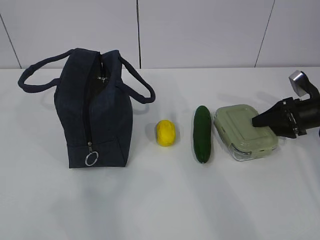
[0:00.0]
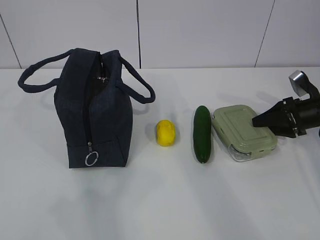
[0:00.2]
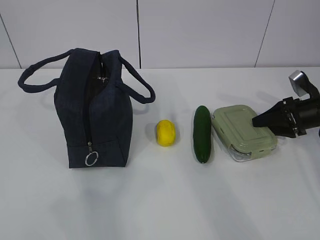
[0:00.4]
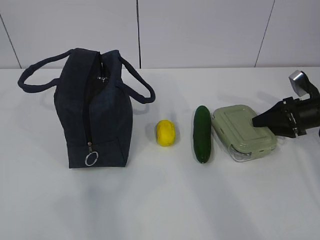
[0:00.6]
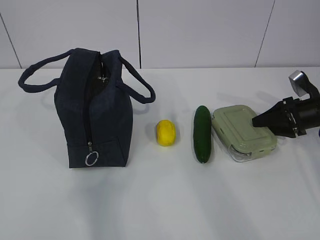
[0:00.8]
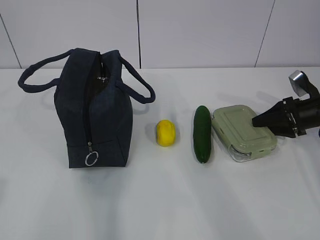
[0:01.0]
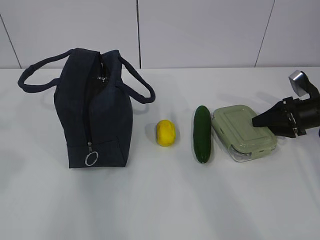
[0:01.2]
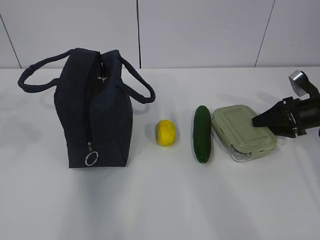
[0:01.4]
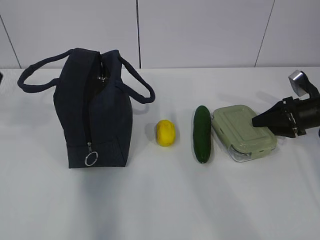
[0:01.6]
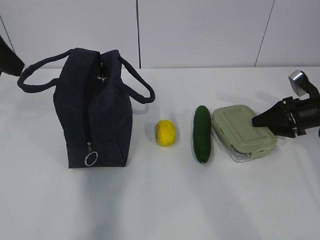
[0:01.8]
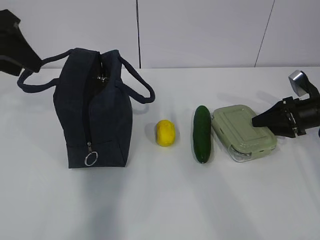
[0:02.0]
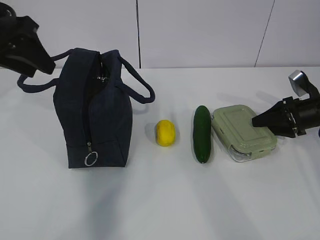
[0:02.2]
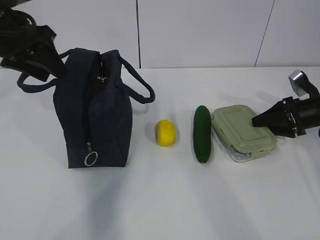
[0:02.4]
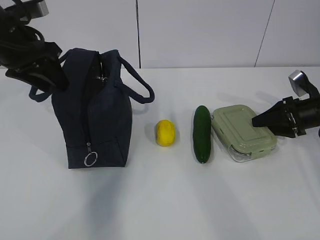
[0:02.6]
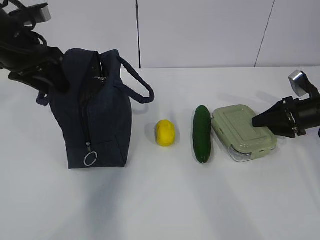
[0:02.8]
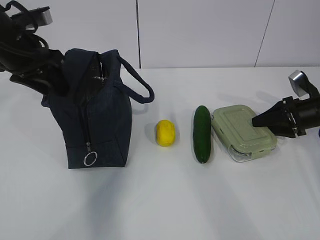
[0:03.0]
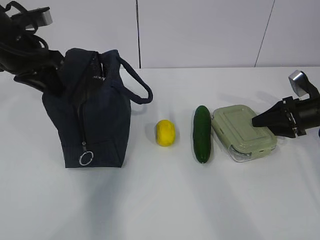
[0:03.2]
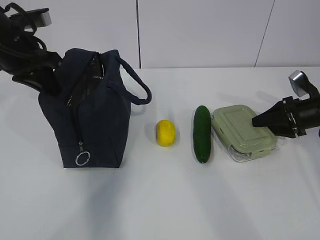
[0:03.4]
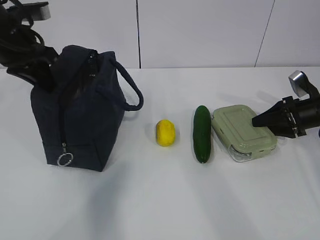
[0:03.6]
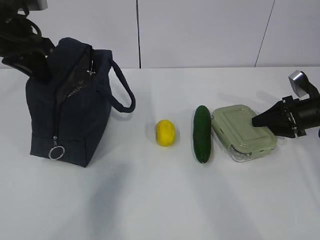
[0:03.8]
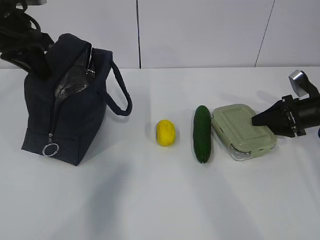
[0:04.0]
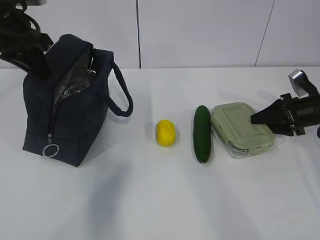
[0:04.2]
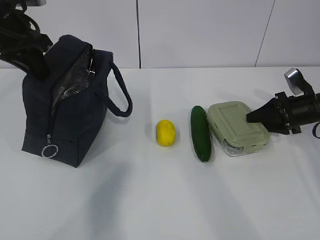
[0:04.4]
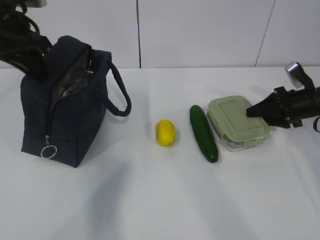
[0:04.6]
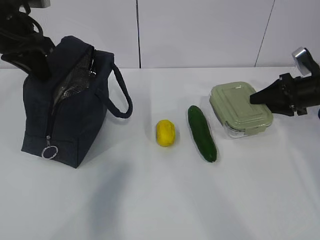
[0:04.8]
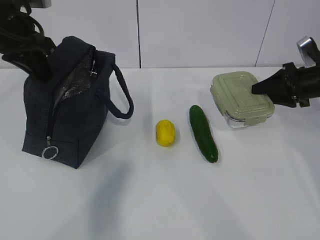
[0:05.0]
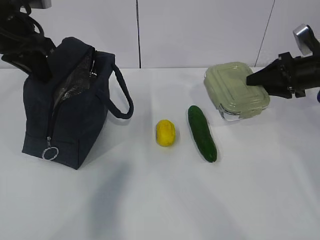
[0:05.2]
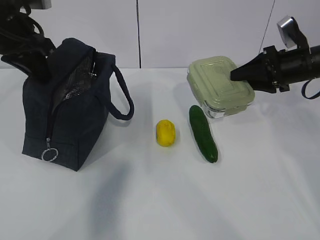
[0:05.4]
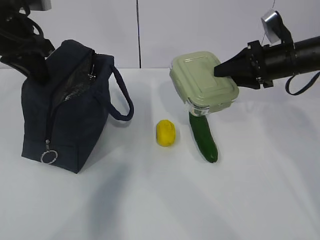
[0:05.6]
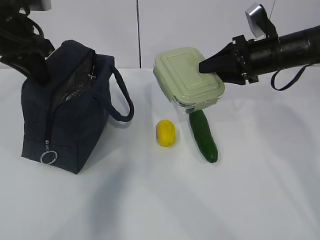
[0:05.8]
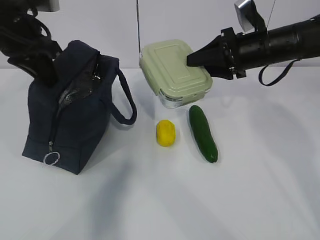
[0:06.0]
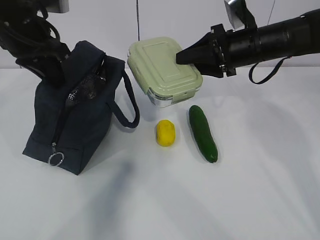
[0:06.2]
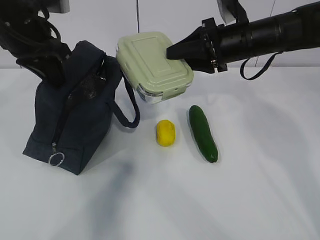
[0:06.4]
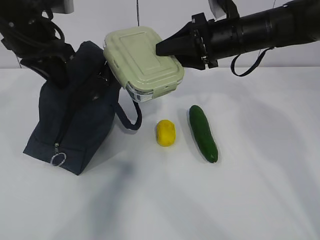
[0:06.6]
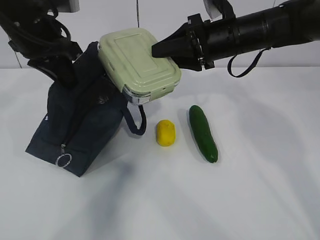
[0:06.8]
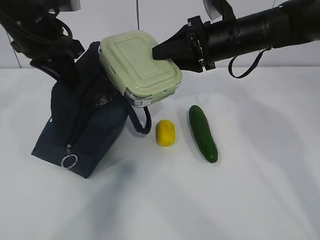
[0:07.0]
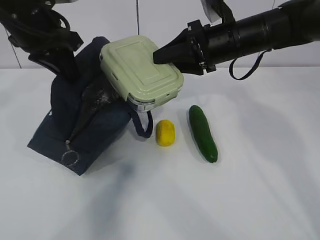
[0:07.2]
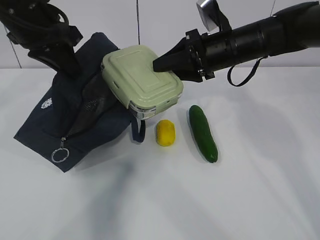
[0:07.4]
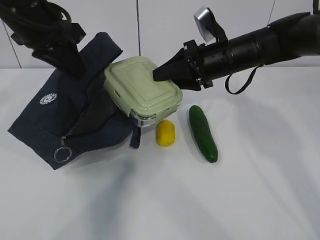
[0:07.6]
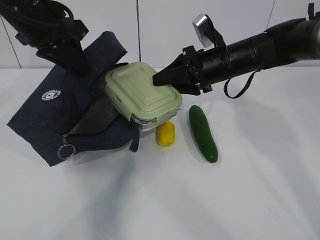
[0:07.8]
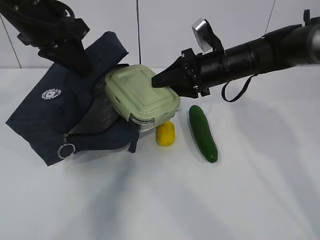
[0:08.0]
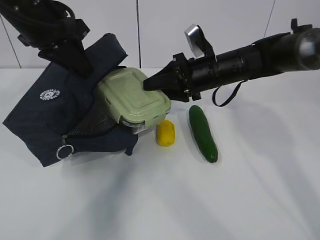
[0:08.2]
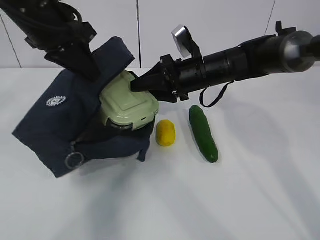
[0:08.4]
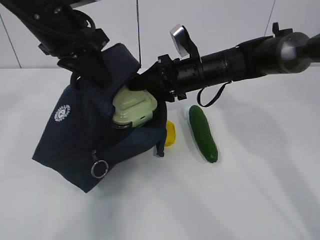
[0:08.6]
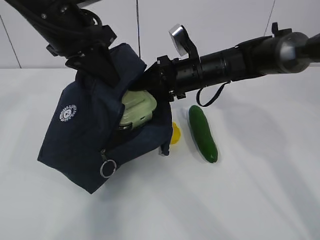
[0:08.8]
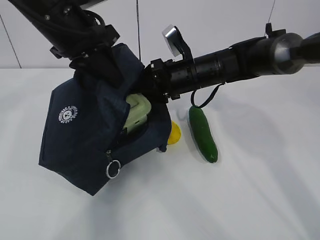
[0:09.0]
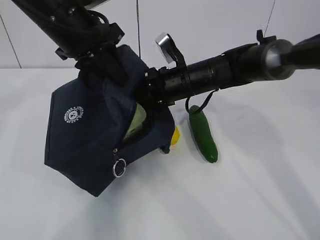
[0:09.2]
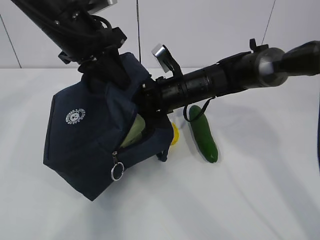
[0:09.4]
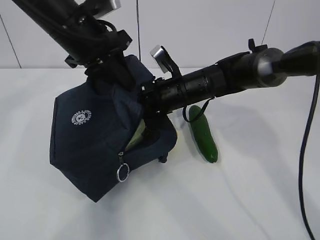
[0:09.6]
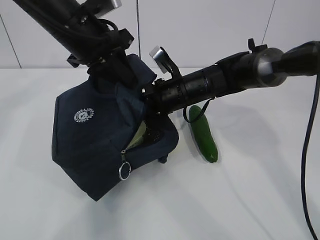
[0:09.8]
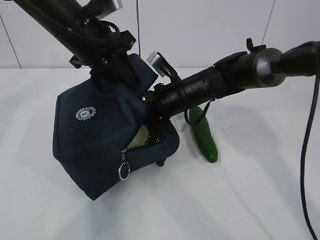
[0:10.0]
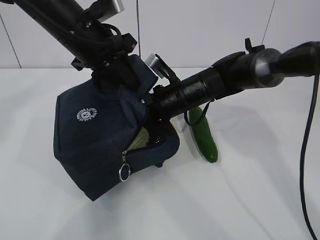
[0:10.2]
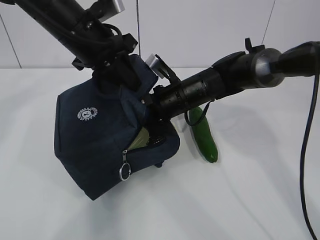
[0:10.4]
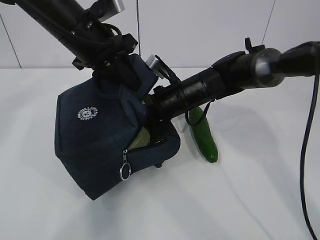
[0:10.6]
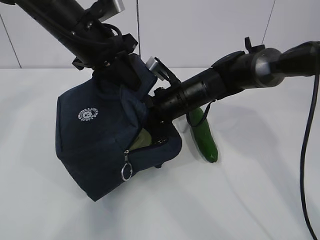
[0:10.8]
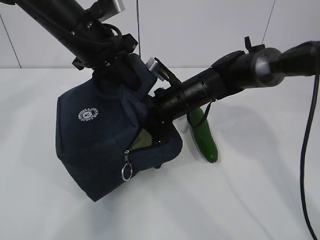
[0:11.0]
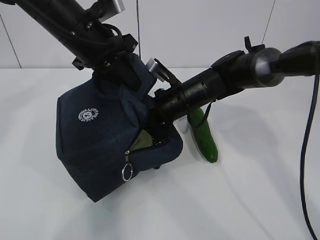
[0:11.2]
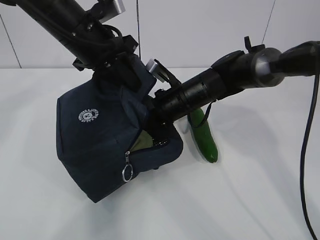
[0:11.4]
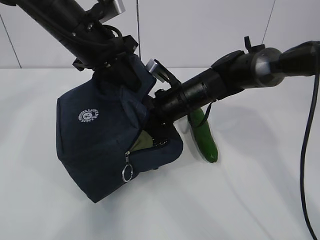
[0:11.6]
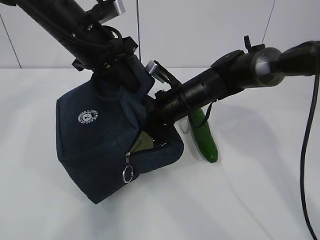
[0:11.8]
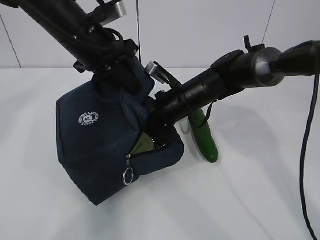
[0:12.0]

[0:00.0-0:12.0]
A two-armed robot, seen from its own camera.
Step, 0:02.6 to 0:04.2: Grab the lunch bag with your left hand.
Step, 0:04.4 to 0:09.2: Place it into the bag with your right hand.
Step, 0:09.6 to 0:11.2: Grab the cucumber with your right hand.
0:00.0 to 0:01.6: The left gripper shifts some 25 cm forward.
0:01.6 to 0:03.0: The left gripper moves forward and downward, some 15 cm.
0:03.0 to 0:04.4: The left gripper closes its fingers.
0:04.4 to 0:06.0: The right gripper heads to the left and upward, covering about 20 cm.
0:06.0 to 0:07.6: The right gripper heads to the left, covering roughly 5 cm.
0:07.6 to 0:09.0: The right gripper travels to the left by roughly 5 cm.
0:09.0 to 0:12.0: There are only small adjustments of the grippers.

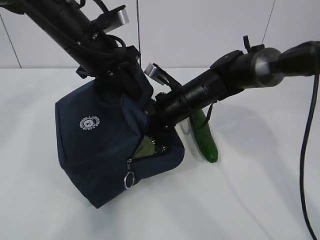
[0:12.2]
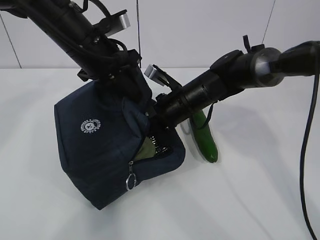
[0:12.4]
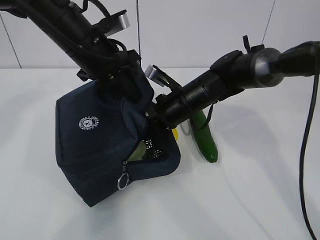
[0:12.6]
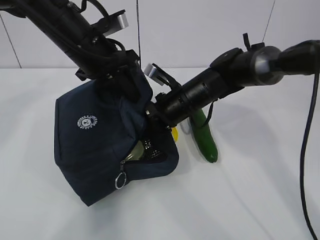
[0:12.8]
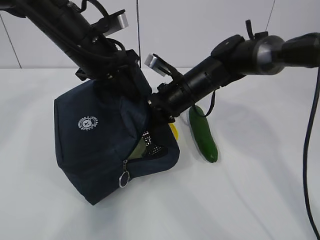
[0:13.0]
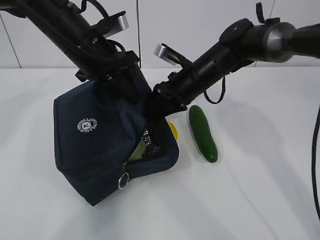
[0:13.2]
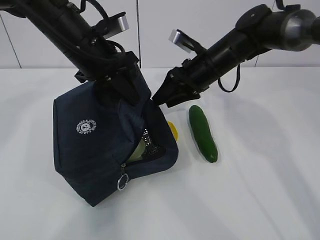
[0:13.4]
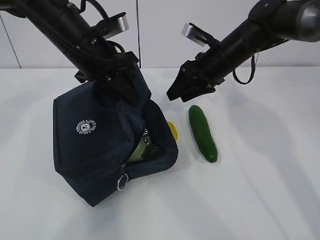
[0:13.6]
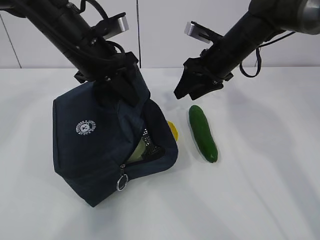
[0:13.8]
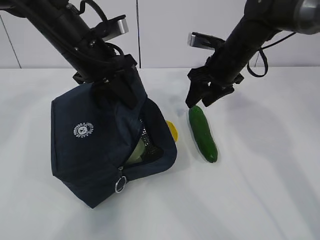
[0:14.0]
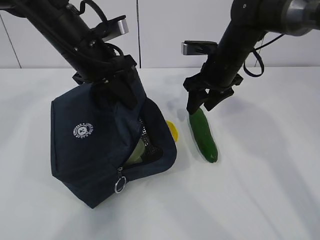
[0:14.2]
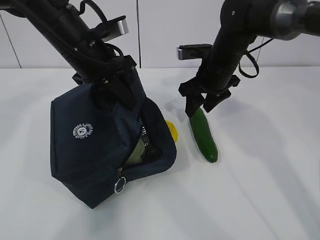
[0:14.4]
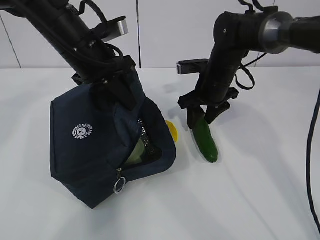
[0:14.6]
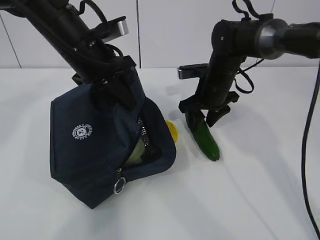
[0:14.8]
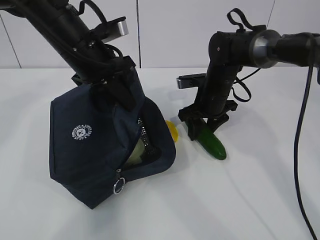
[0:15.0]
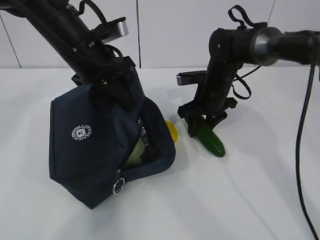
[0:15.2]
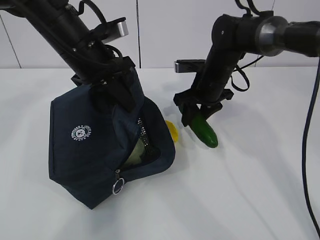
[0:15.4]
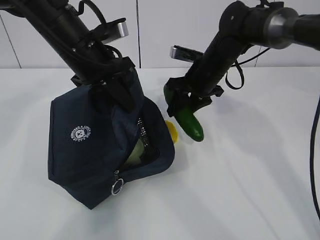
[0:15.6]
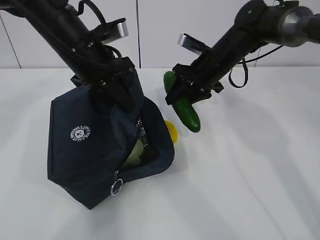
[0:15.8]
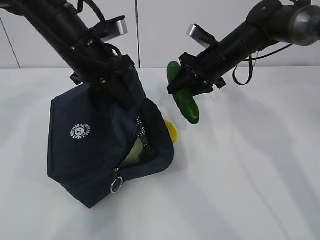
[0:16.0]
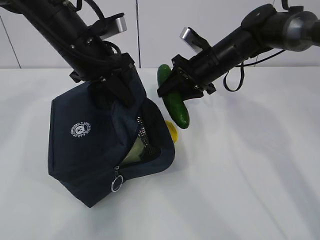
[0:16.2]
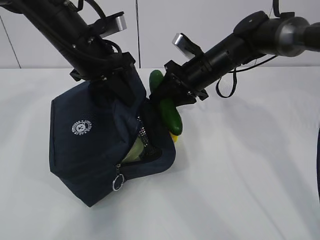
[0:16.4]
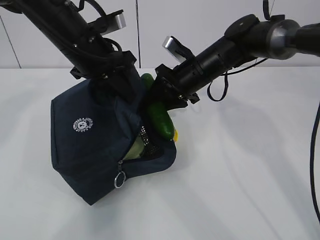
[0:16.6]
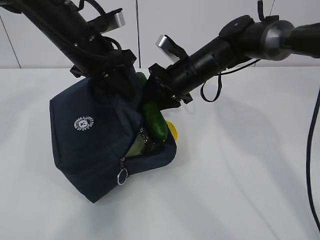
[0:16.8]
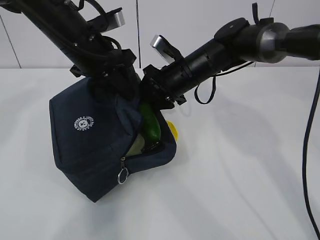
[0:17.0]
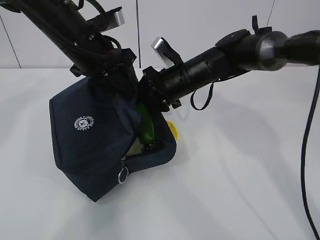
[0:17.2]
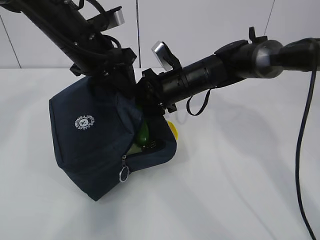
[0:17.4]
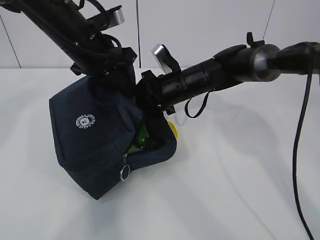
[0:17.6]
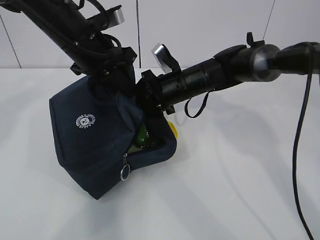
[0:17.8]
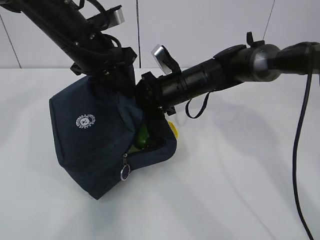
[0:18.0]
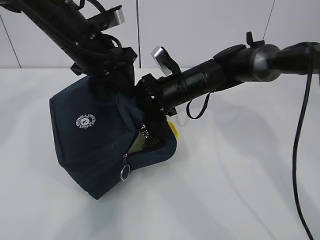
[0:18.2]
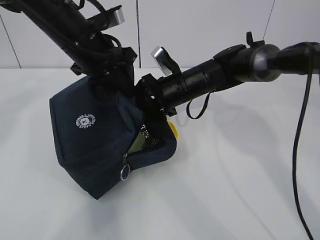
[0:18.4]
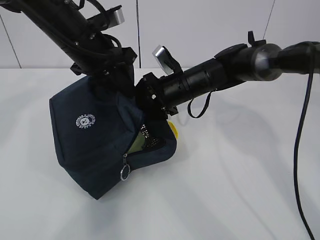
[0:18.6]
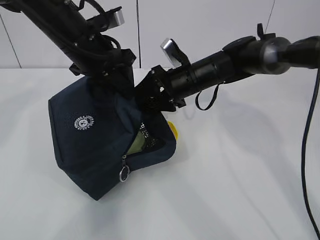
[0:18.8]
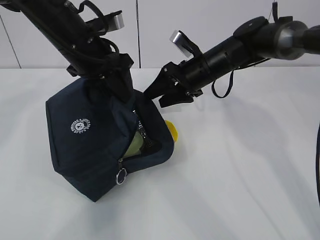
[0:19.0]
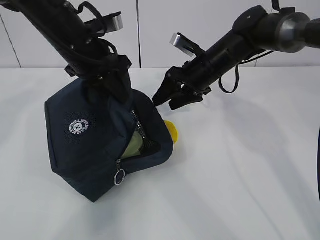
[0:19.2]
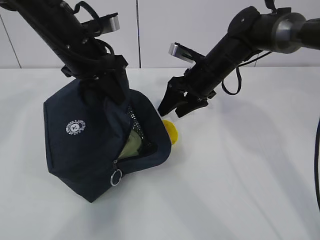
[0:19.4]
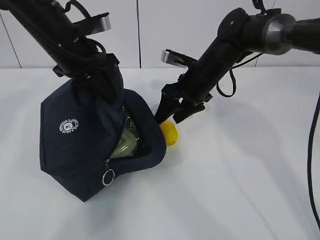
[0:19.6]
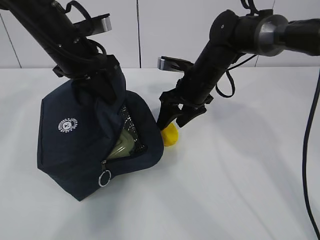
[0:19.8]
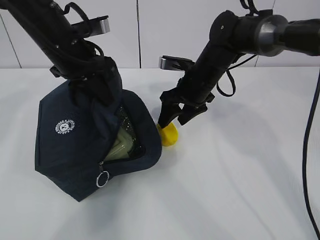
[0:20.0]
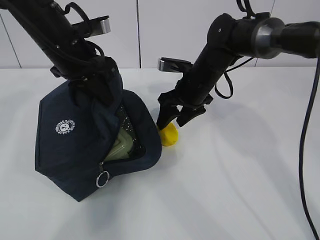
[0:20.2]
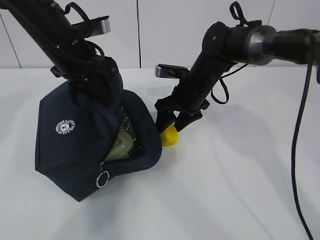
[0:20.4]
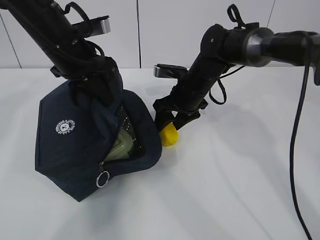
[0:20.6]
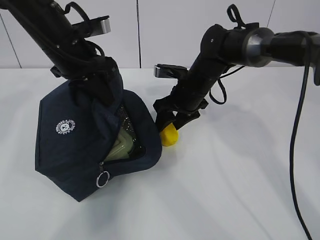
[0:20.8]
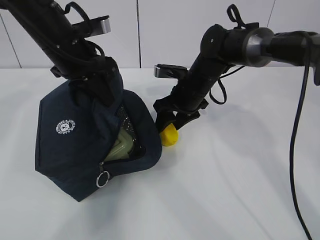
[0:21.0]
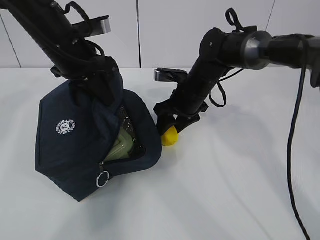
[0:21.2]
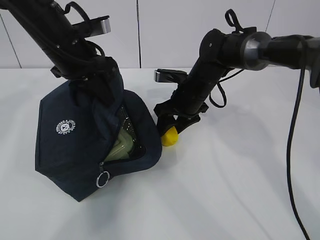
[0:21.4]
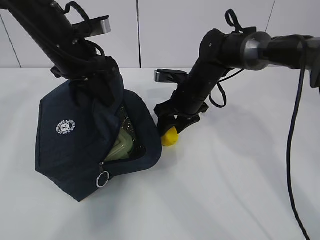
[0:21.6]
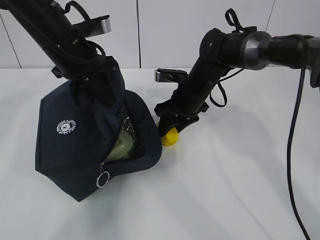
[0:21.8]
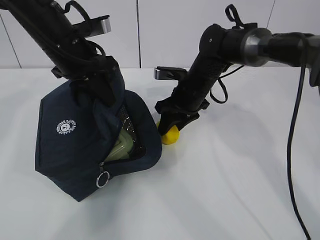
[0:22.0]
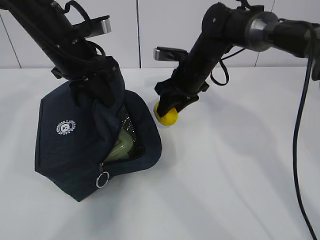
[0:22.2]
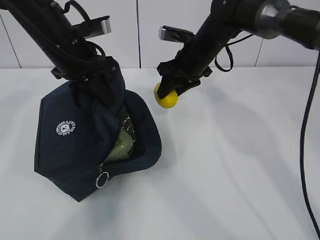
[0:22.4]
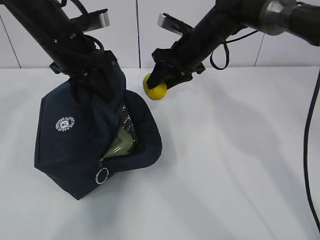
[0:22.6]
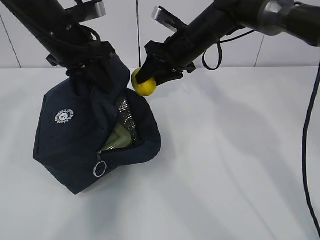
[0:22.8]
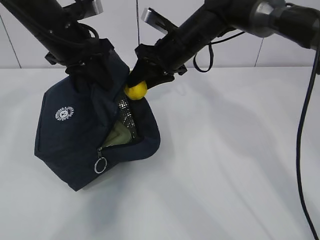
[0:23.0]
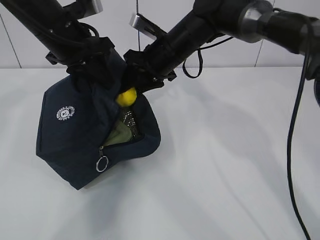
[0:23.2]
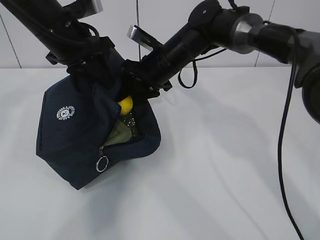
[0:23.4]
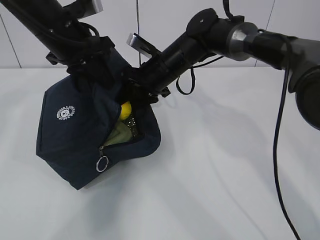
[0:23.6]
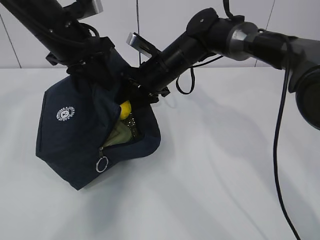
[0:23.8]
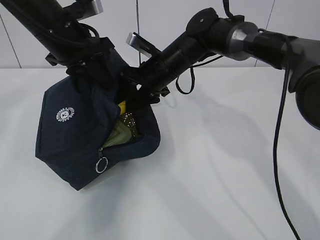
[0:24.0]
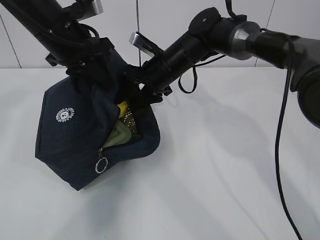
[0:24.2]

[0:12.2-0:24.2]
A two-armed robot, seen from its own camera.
Step, 0:12.2 to 0:13.8: Place it into the bag with your right hand.
Step, 0:14.0 to 0:16.8: Grab the lemon with your right hand.
Step, 0:19.2 to 0:20.2: Grab the lunch bag with your right hand.
Step, 0:20.4 to 0:22.2: Move the lunch bag to the right.
0:12.2 to 0:13.8: The right gripper heads to the right and upward, covering roughly 10 cm.
0:13.8 to 0:15.2: The right gripper travels downward by roughly 10 cm.
0:15.2 to 0:16.6: The right gripper ends up about 5 cm from where it was.
0:16.6 to 0:18.2: The grippers stay close to where they were, moving slightly.
0:19.8 to 0:21.2: The grippers make only small movements.
0:21.2 to 0:22.6: The right gripper goes approximately 10 cm upward.
0:22.6 to 0:24.2: The right gripper shifts by roughly 5 cm.
